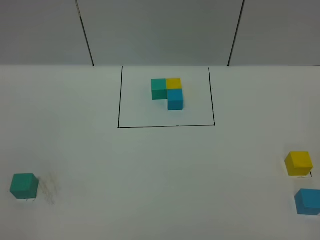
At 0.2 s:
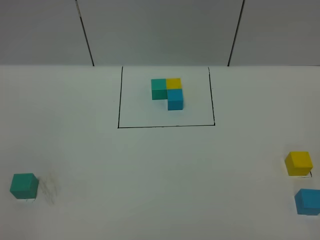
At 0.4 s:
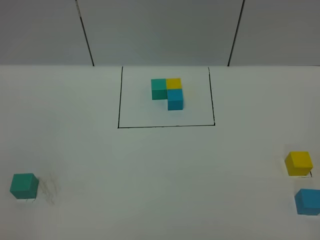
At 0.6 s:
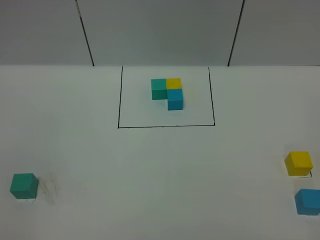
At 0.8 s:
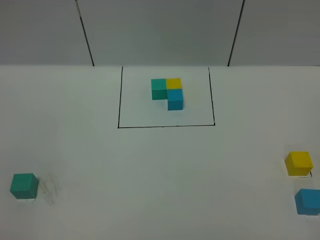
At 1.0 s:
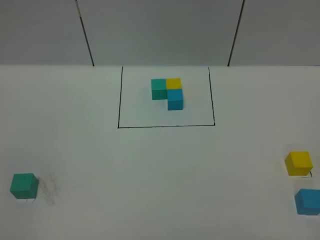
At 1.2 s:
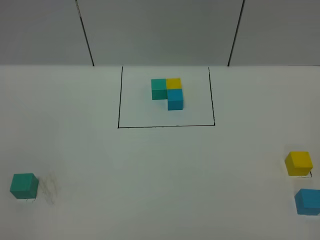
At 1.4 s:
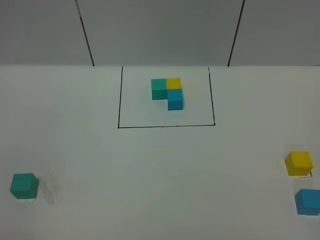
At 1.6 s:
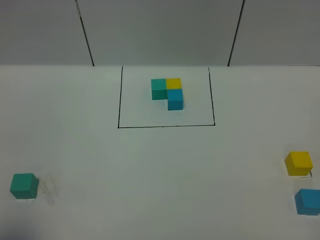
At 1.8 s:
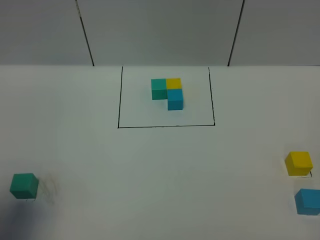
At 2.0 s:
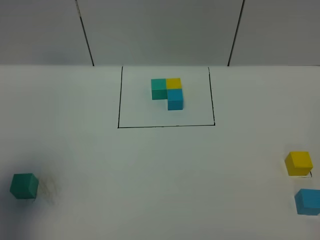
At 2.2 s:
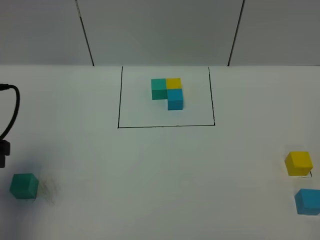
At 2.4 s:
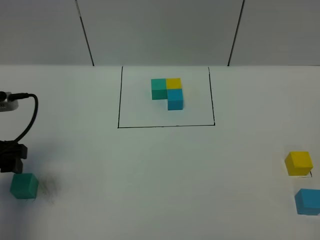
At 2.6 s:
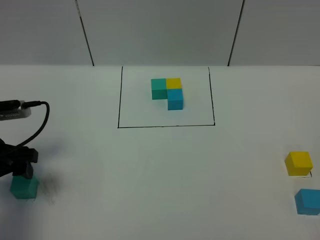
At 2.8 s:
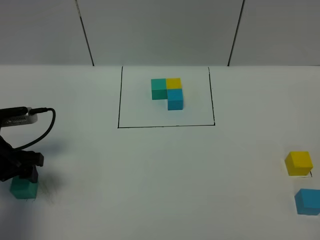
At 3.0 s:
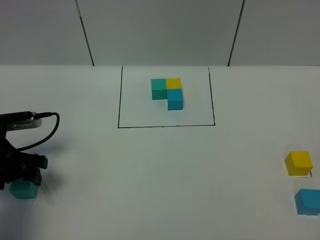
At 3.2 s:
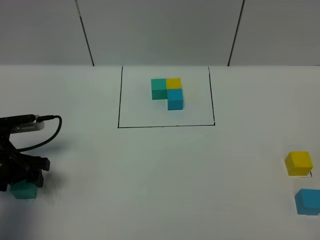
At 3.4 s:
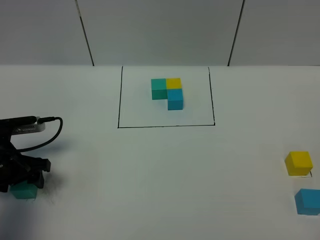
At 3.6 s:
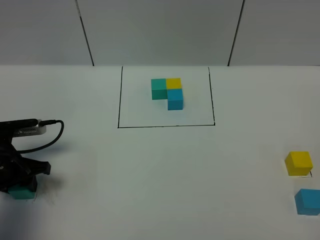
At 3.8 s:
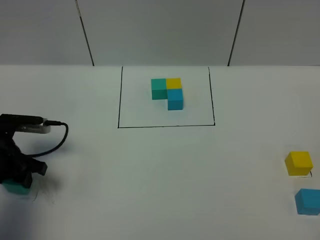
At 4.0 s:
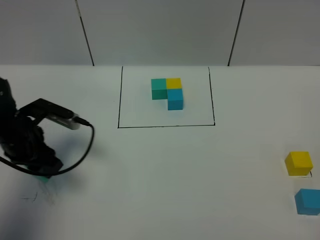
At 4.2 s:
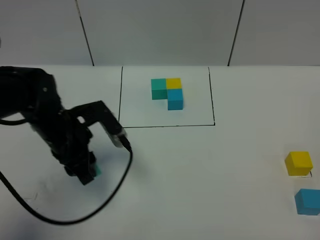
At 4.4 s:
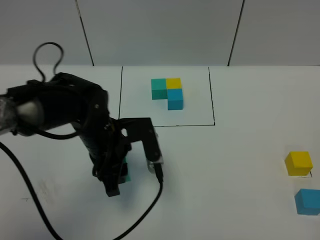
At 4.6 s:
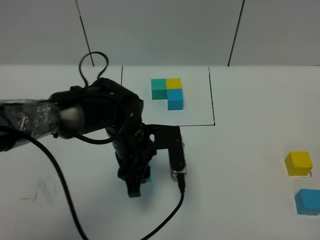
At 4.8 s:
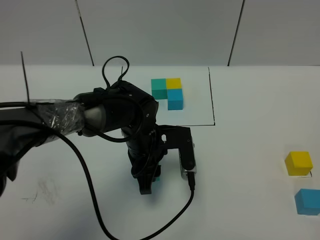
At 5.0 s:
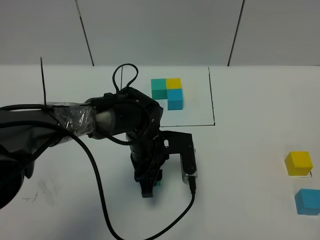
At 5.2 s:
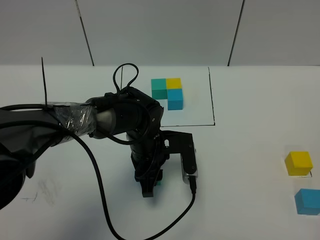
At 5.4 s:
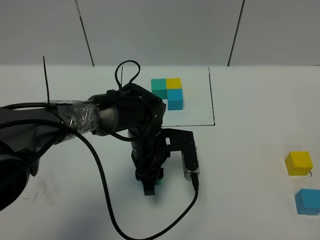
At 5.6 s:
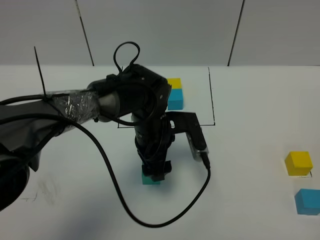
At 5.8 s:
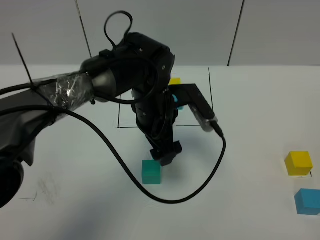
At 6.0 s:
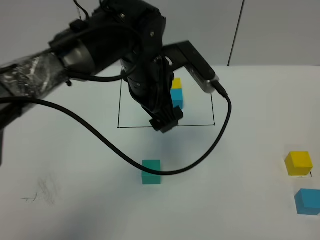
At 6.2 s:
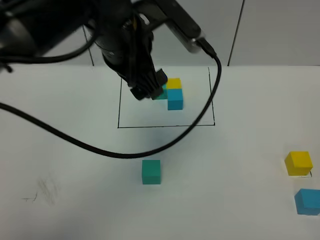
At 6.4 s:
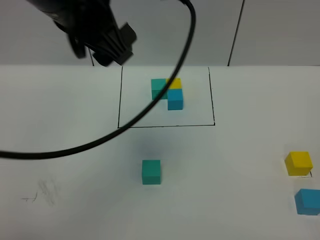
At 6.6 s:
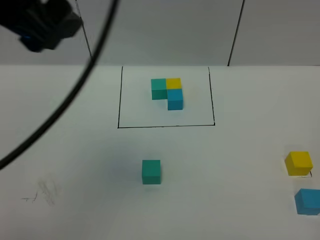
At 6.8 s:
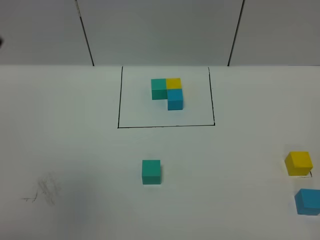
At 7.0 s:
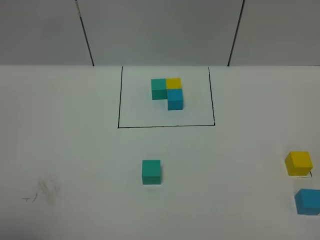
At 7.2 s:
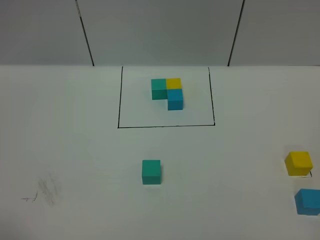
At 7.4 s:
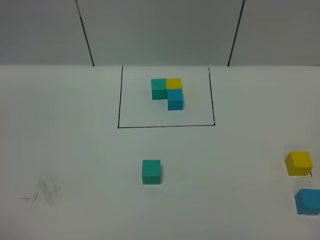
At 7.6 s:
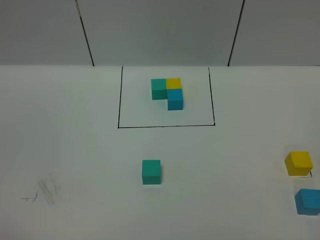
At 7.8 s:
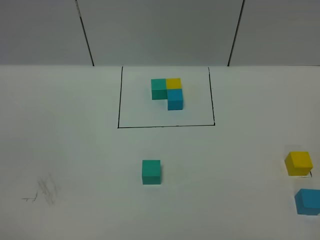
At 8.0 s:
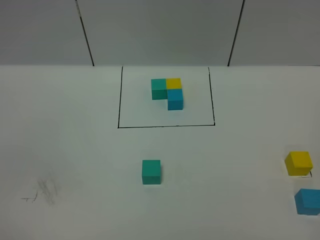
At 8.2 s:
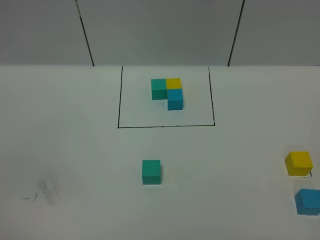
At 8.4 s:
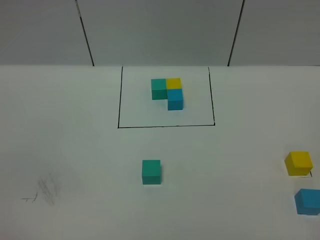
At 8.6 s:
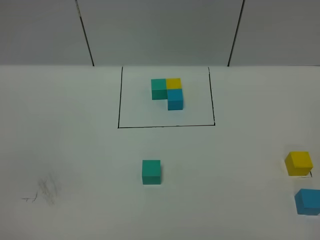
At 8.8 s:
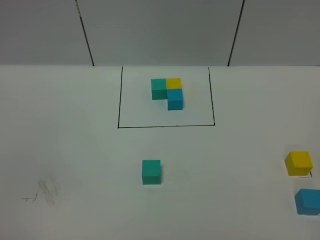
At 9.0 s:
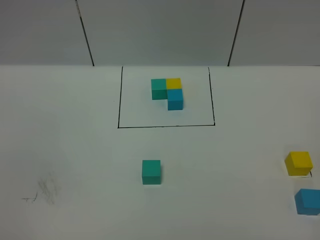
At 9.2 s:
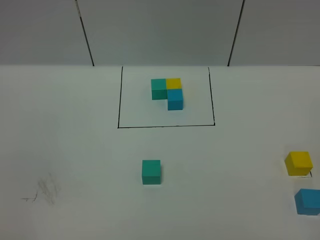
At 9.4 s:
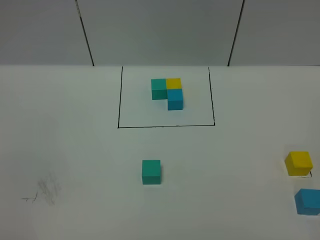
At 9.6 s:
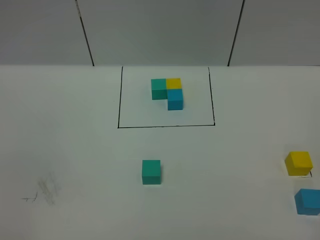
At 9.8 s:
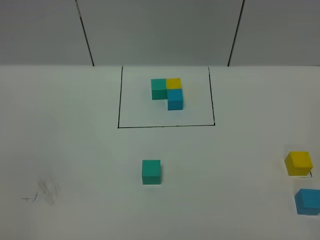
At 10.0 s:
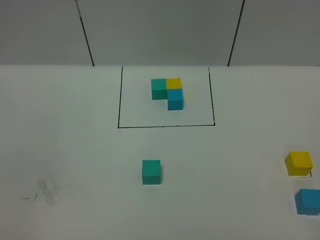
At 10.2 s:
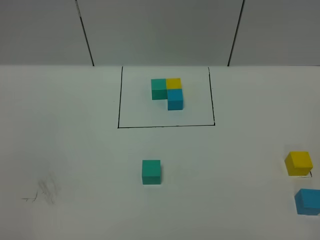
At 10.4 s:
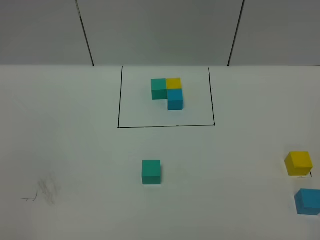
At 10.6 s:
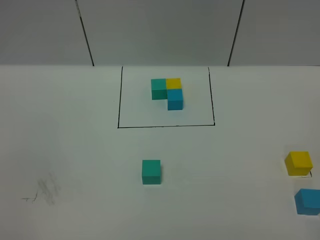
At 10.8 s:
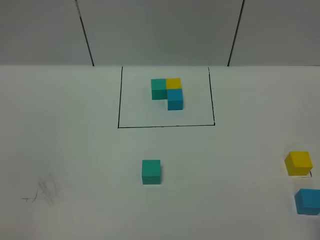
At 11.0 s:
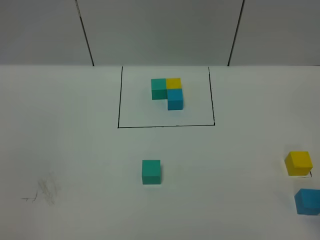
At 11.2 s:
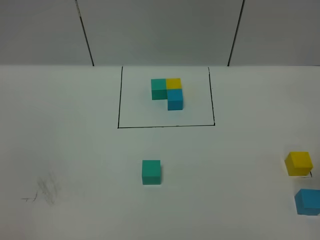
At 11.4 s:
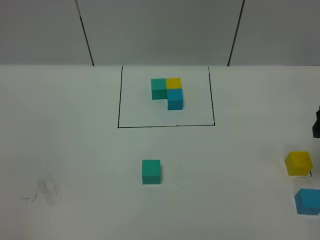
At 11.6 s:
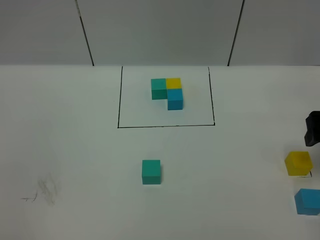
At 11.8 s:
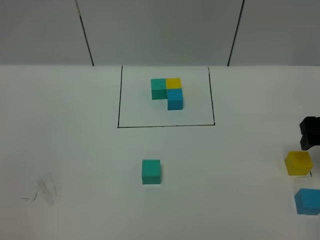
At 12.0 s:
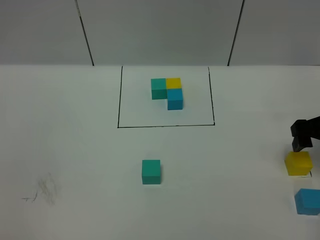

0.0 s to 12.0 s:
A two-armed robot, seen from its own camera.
Task of the whole recording: According to the building block template in front, assemble the scattered blocks together.
Step, 2.0 to 5.4 s: Put the green cube in the center of the table.
1.6 to 3.0 s: The left gripper heads forward and downward, covering roughly 30 cm.
3.0 to 4.4 s: The left gripper heads to the right, covering some 20 cm, and closes its fingers.
4.4 to 6.0 s: The left gripper heads upward and to the right, covering some 15 cm, and opens up.
6.0 to 7.6 s: The left gripper heads backward and to the left, covering roughly 50 cm.
10.4 to 12.0 s: The right gripper heads forward, covering roughly 35 cm, and opens its fingers.

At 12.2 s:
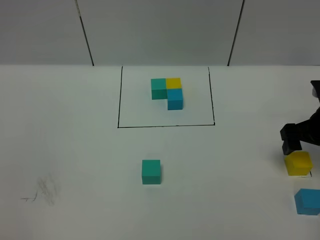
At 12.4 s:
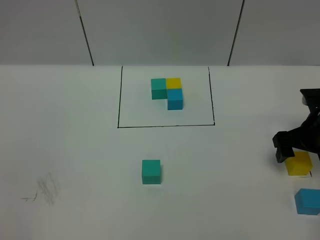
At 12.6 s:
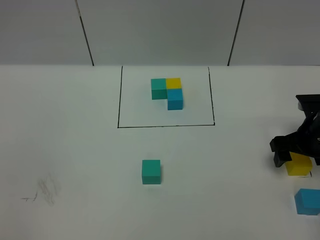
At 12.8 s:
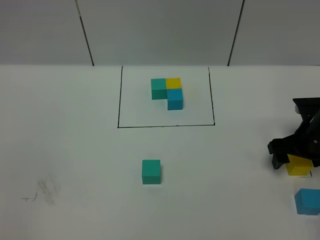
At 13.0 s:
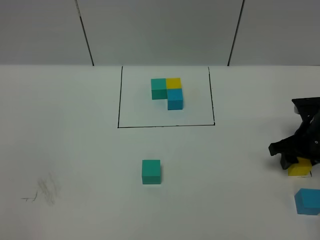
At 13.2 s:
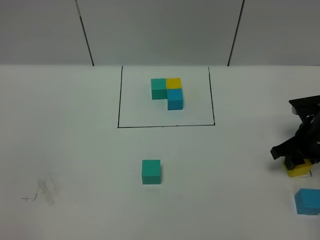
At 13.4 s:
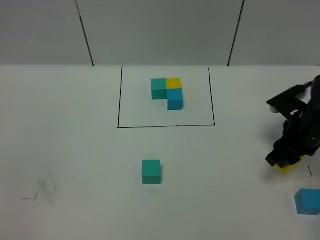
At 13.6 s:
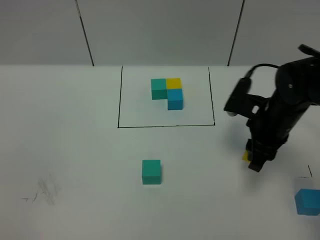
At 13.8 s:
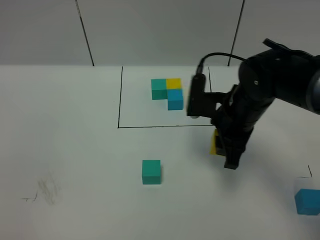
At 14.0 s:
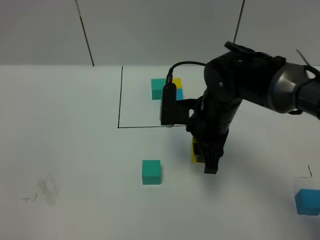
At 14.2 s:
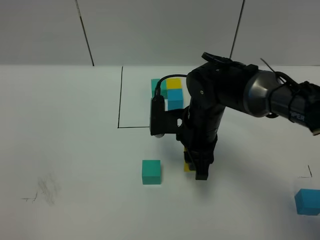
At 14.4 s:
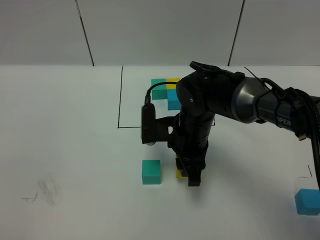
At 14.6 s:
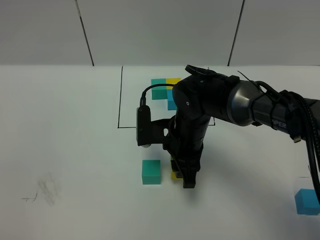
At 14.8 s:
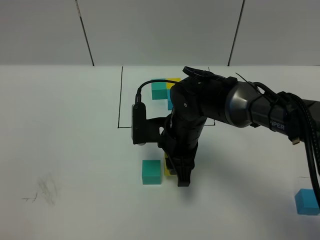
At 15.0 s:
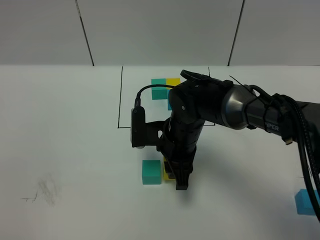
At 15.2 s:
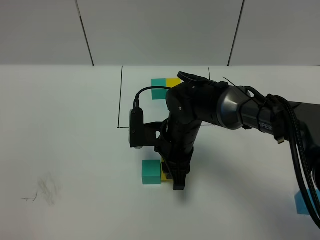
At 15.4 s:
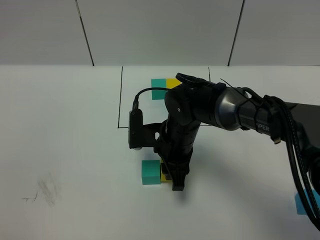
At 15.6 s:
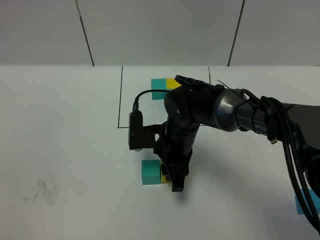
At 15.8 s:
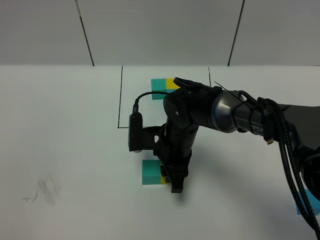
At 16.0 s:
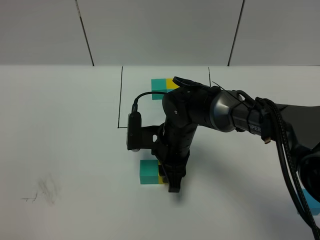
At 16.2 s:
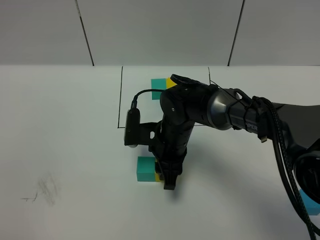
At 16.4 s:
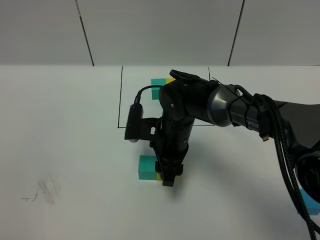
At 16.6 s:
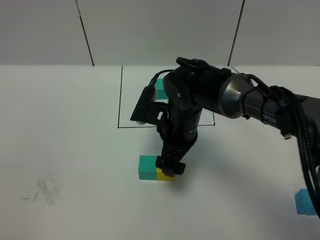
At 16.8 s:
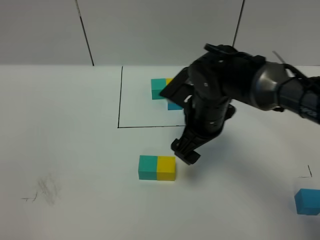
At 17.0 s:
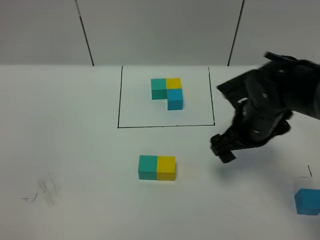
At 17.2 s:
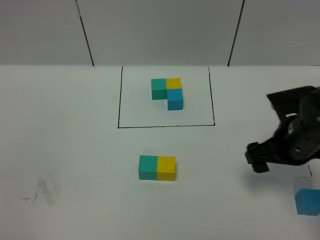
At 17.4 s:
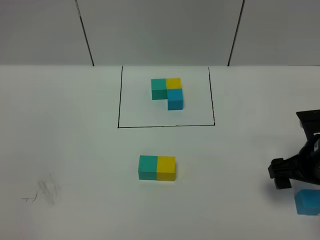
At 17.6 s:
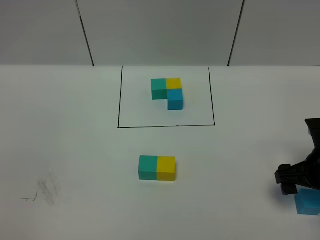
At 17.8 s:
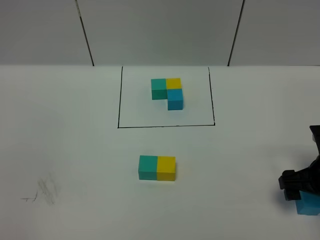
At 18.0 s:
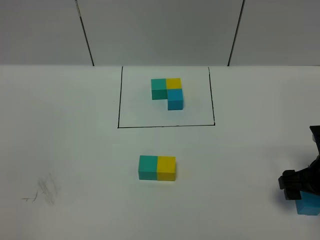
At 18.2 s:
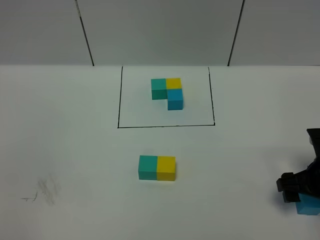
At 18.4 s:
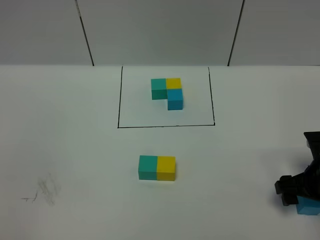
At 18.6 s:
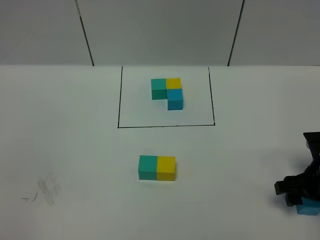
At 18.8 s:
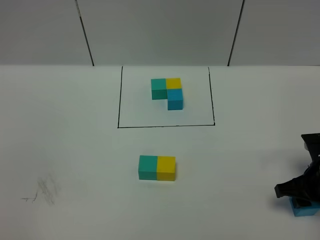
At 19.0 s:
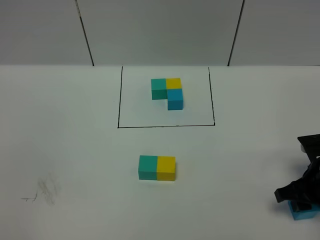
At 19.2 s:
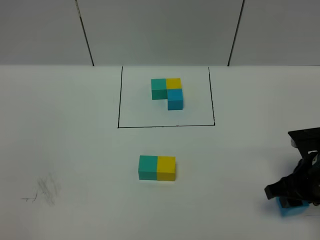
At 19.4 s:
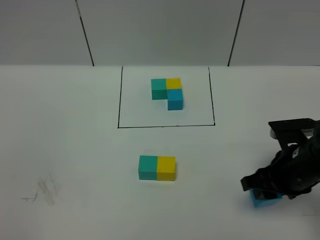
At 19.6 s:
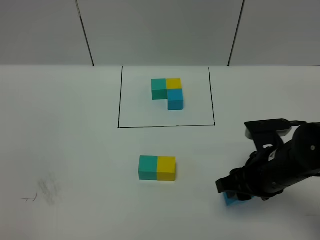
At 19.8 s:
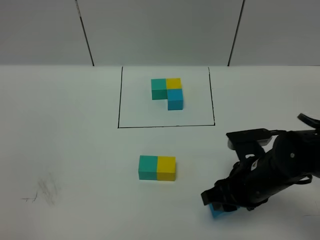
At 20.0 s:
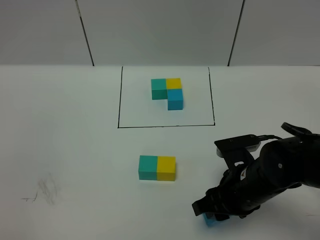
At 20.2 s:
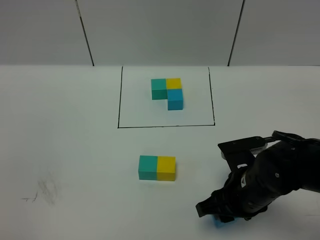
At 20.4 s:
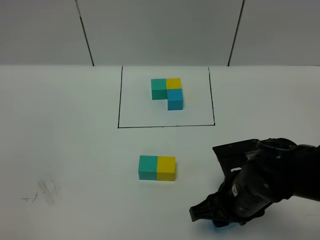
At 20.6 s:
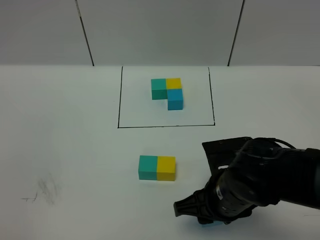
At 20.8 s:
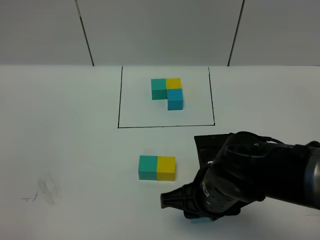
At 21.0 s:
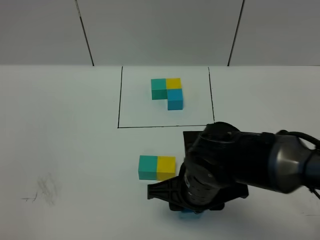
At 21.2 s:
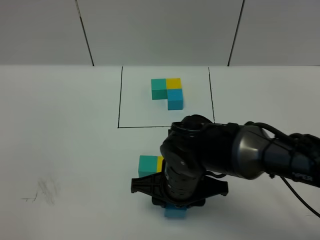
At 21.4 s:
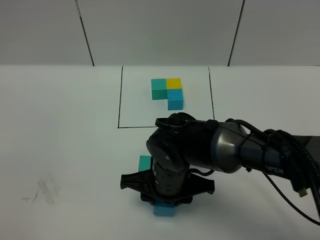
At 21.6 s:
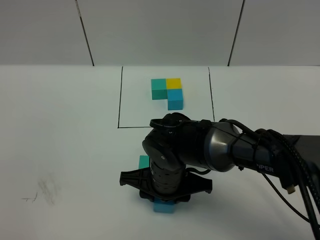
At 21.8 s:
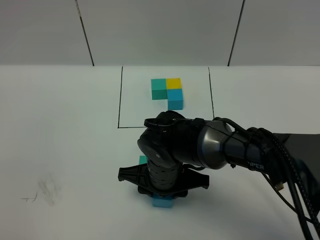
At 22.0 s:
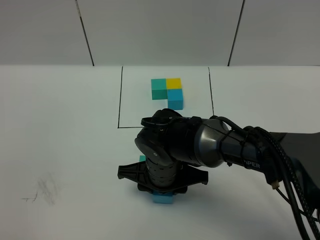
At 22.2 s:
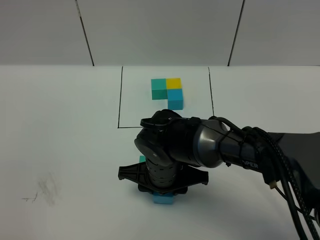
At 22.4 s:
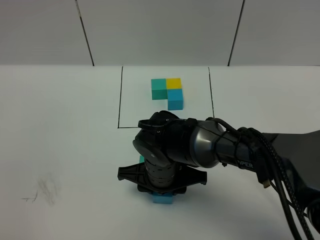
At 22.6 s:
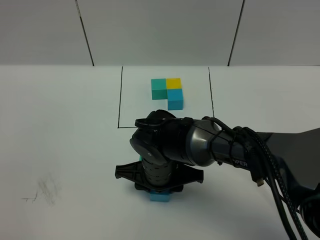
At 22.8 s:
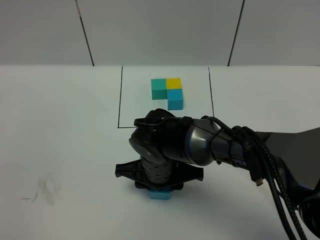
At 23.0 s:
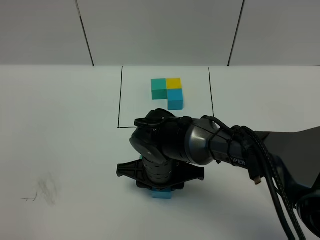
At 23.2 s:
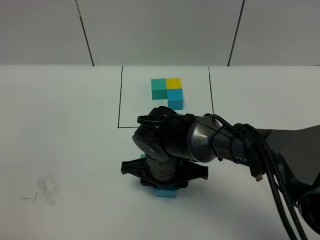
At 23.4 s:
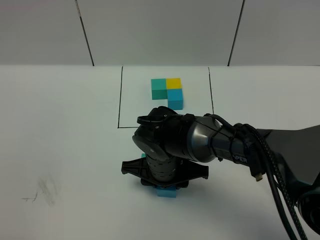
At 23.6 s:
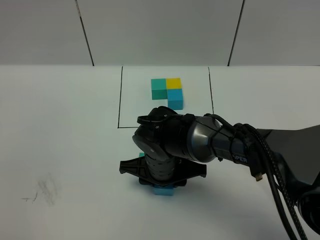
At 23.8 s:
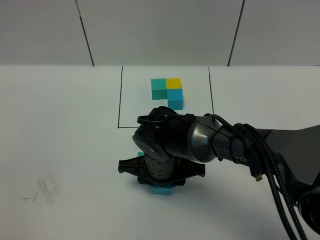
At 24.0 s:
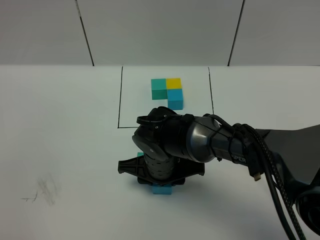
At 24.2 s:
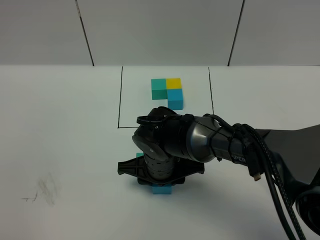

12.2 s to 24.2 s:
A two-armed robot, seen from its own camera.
Task of the whole recording: According to the building block template in front, assemble the scattered blocks together.
Step, 12.2 to 16.4 s: Put the yellow cube on the right of the green cube.
12.2 to 13.8 s: The right gripper travels to the left by about 20 cm, and closes up.
13.8 to 15.2 s: The right gripper heads to the left and downward, covering approximately 10 cm.
15.2 to 16.6 s: The right gripper opens its fingers.
16.6 to 18.2 s: The right gripper moves to the right, about 25 cm.
18.2 to 19.8 s: The right gripper shifts roughly 15 cm to the left, and closes up.
19.8 to 21.2 s: The right gripper shifts roughly 15 cm to the left.
21.2 to 22.6 s: The right gripper shifts by about 5 cm.
22.6 to 24.2 s: Neither gripper changes place.
